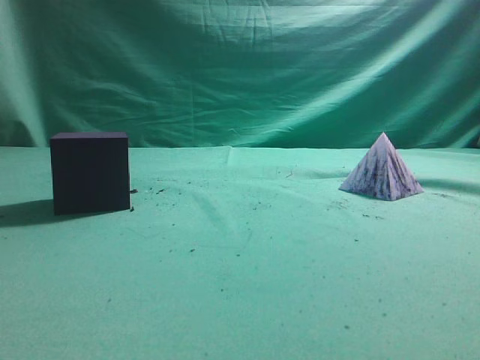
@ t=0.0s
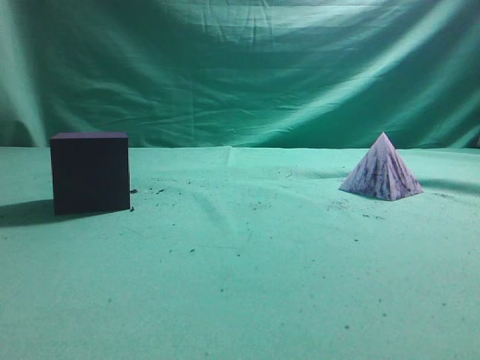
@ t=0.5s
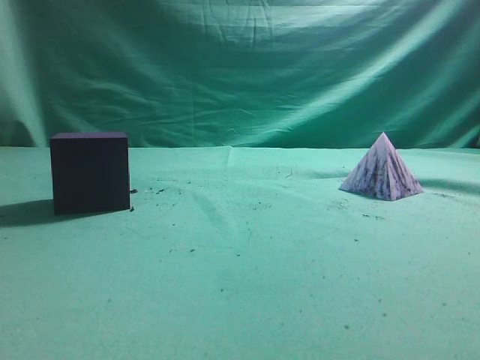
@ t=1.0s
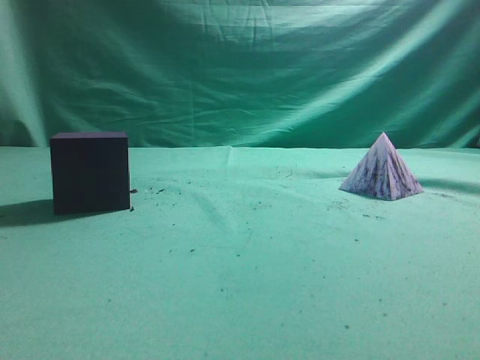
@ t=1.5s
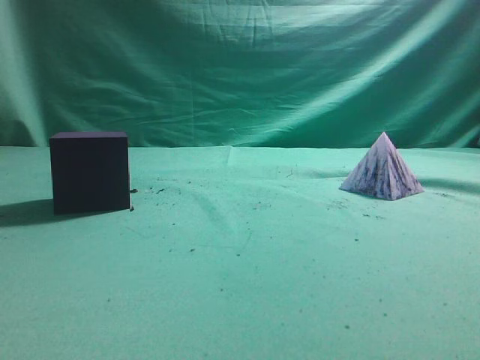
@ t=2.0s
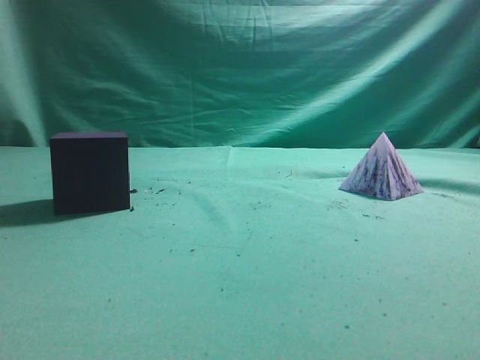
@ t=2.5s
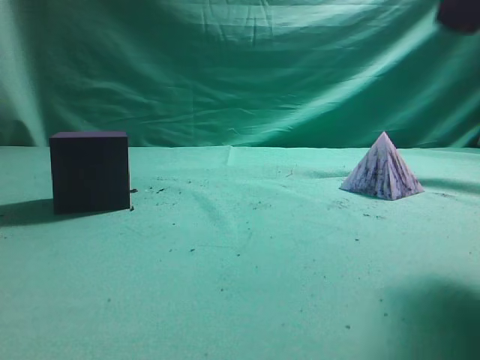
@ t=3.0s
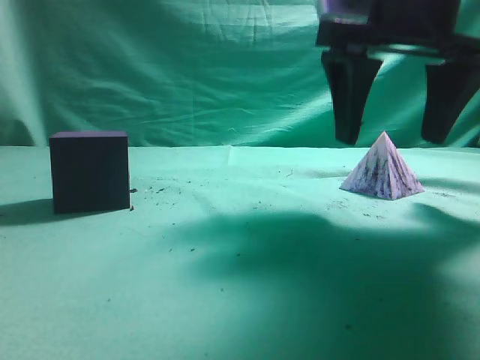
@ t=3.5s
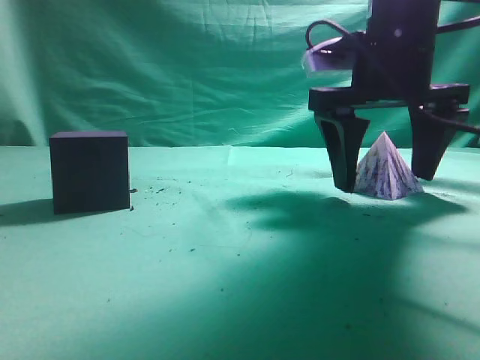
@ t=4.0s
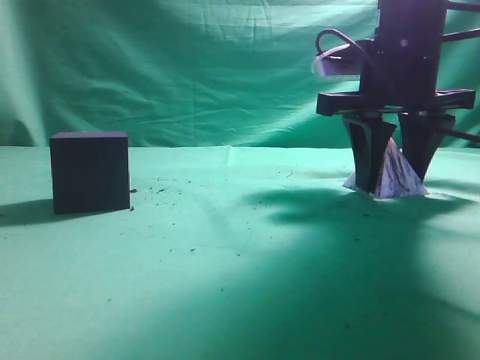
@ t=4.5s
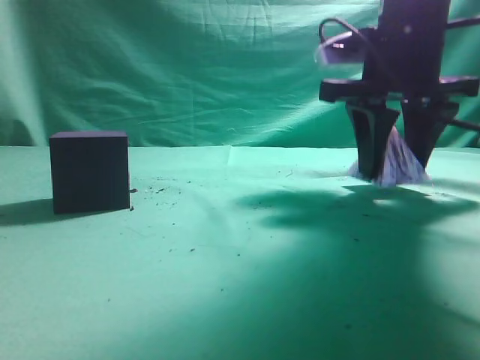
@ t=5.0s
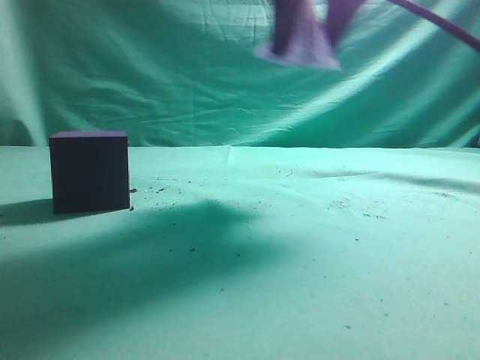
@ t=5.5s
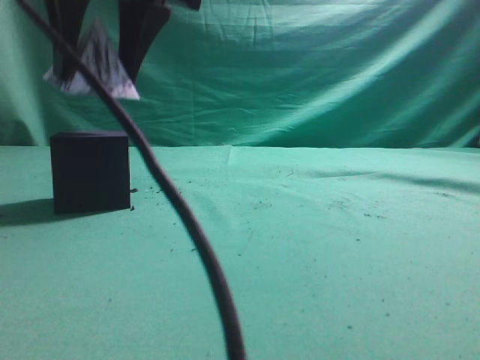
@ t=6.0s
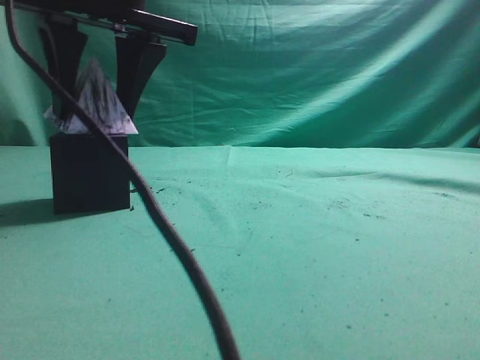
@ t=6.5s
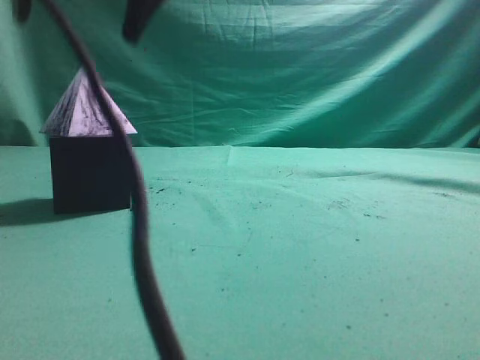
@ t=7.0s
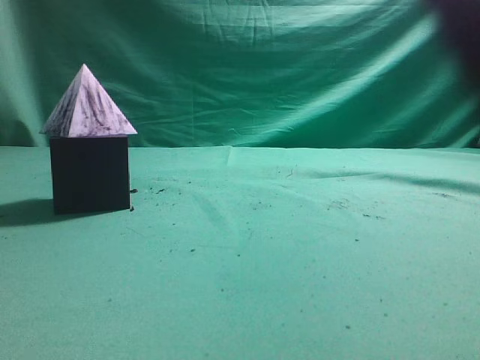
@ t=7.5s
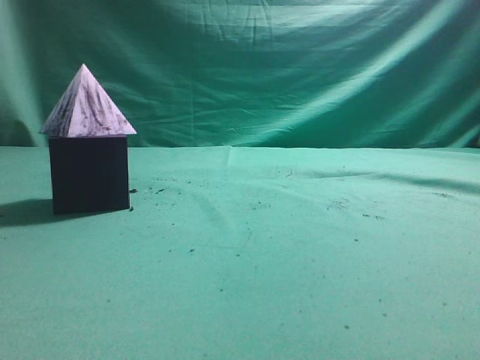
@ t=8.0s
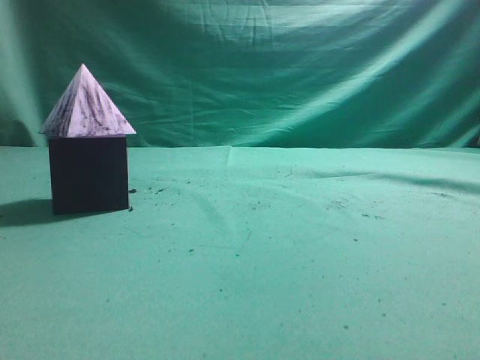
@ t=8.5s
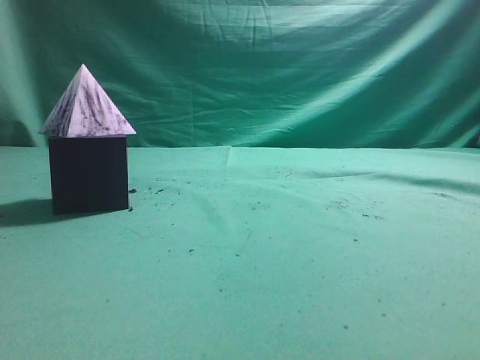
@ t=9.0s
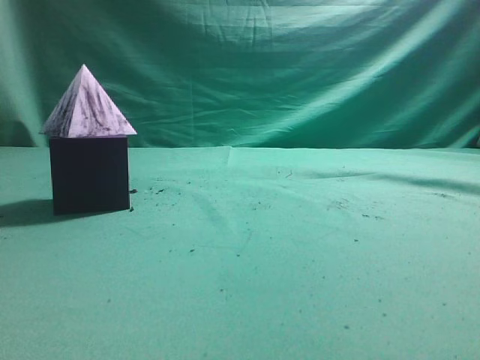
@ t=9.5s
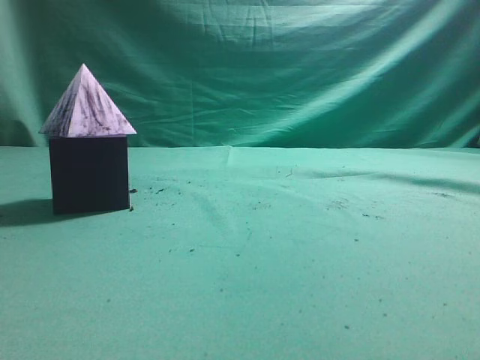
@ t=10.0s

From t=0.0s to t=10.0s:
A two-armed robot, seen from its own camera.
Task of the whole recording: pick up the square pyramid from the table and place it on the cube block.
Step, from t=0.0s to t=5.0s: Grasp the triangular block.
Step, from t=5.5s to t=6.5s: Place the block onto the cube-shaped block.
From t=2.0s to t=4.0s: The right gripper moves forward and to the left, about 35 cm, and opens.
From t=4.0s to t=6.0s: The right gripper travels to the left and upward by approximately 25 cm, and closes.
From t=6.0s to t=8.0s: The right gripper moves to the right, backward and upward, approximately 35 cm, and closes up.
